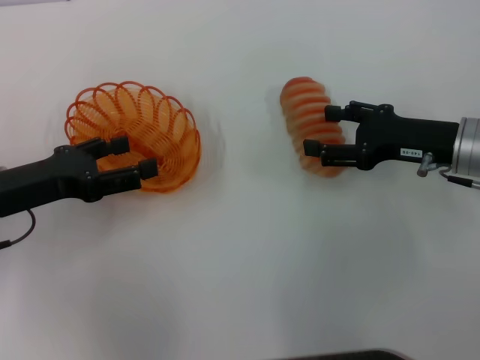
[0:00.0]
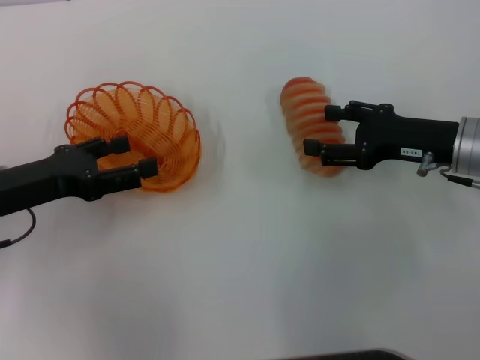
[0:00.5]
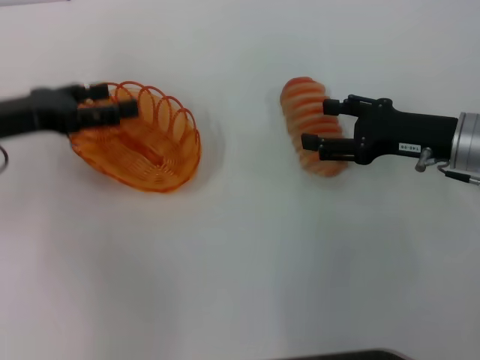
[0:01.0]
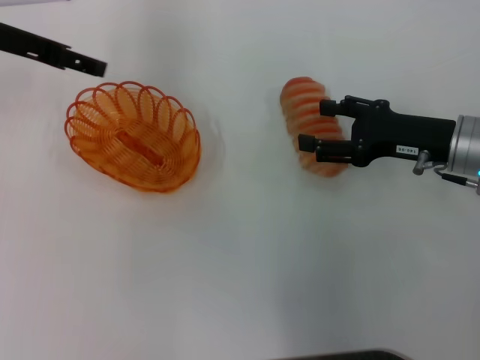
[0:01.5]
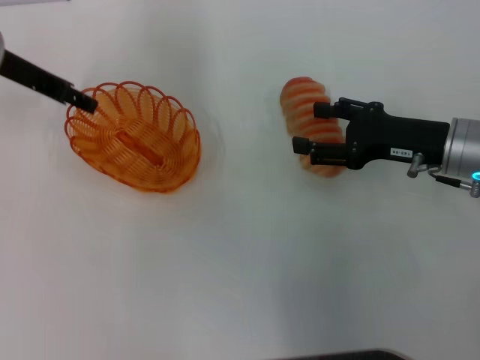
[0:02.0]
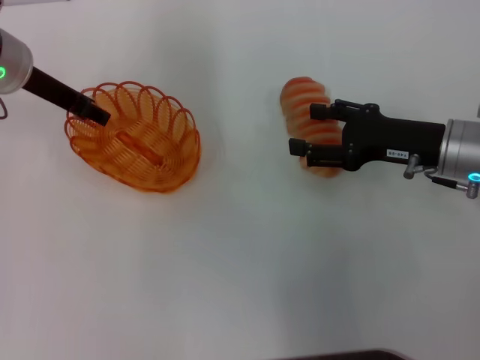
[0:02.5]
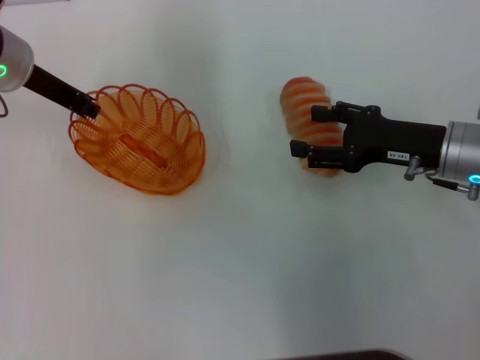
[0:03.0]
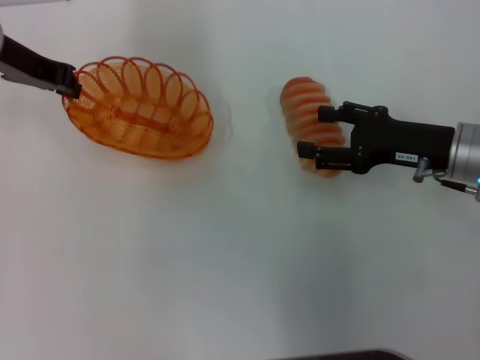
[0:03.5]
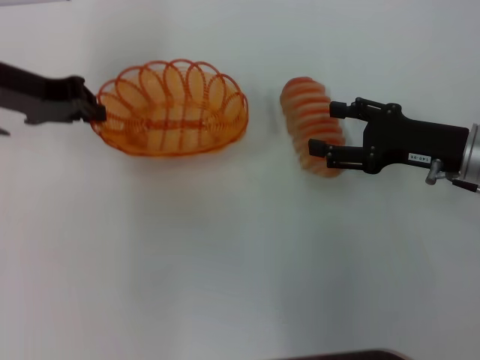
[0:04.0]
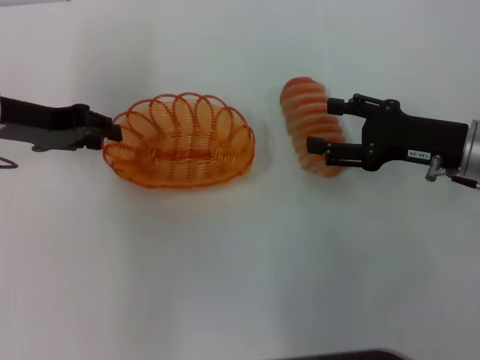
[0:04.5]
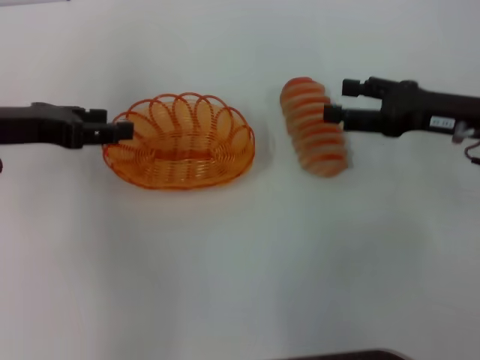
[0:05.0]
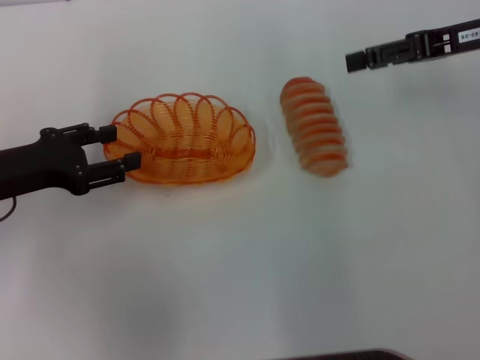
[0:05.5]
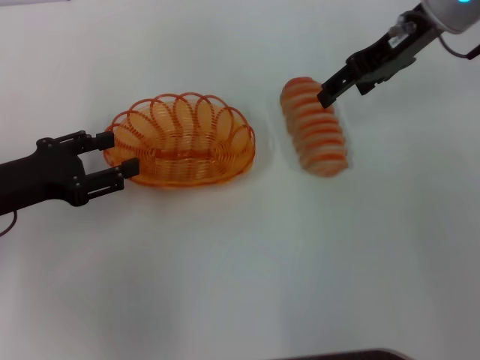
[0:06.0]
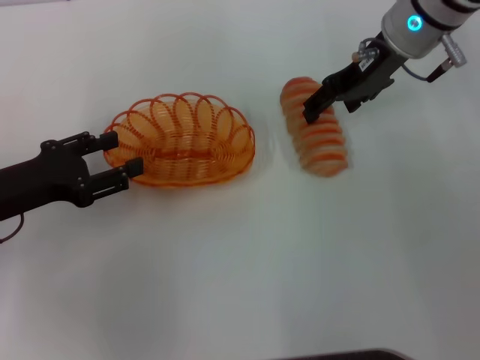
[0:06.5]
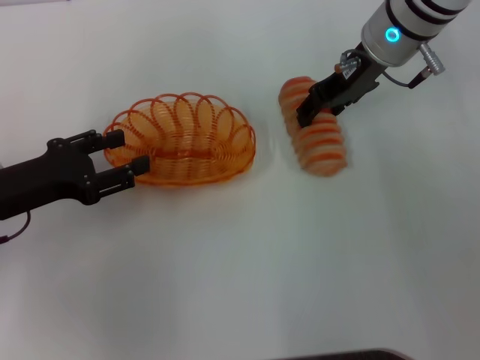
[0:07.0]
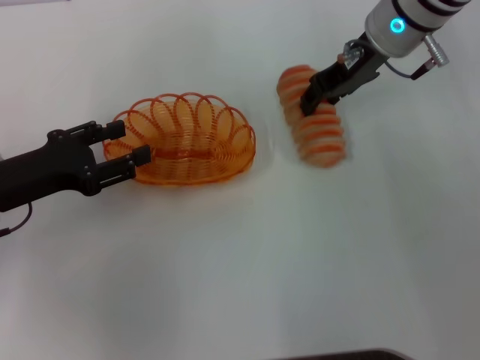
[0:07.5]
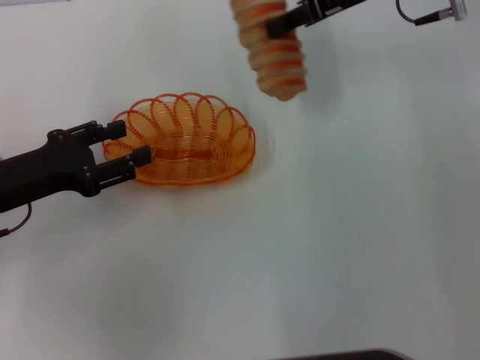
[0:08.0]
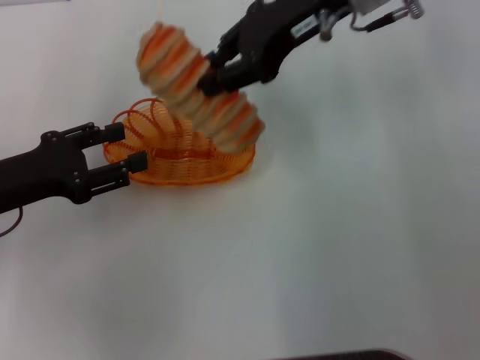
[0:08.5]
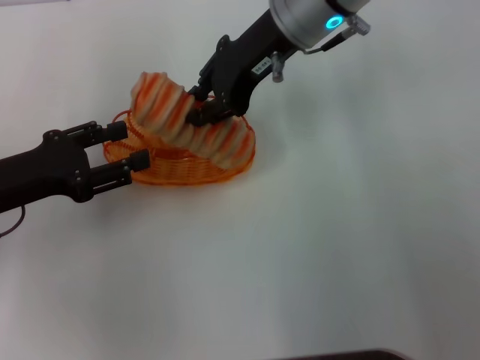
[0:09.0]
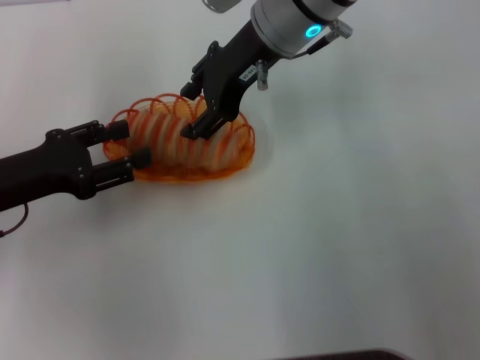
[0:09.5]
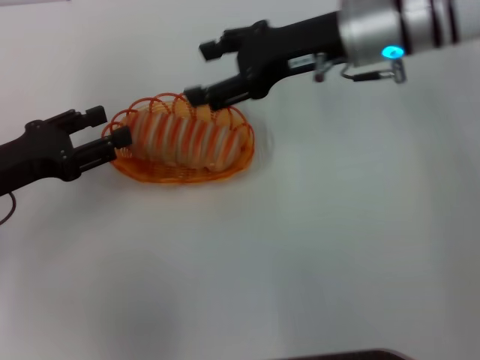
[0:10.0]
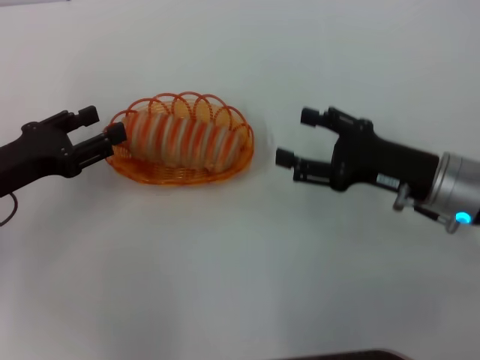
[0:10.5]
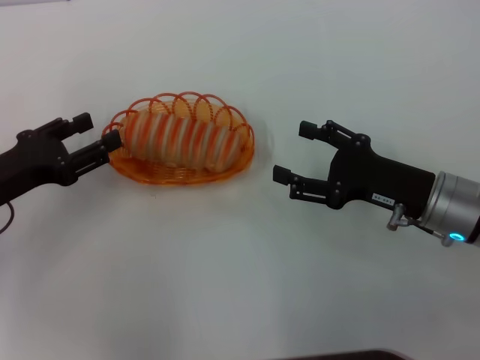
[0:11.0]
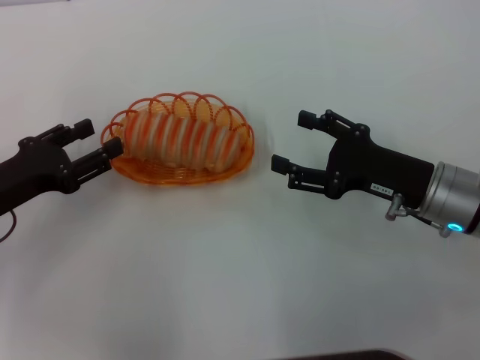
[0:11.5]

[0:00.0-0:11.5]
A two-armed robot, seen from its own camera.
Step, 0:00.0 to 0:03.0: Pick up the basket with the left gripper.
Step, 0:04.0 to 0:04.5: Place the basket in the center of view with the left gripper.
Step, 0:05.0 to 0:07.0: Pick up the long bread with the right gripper.
Step, 0:08.0 to 0:09.5: Place the long bread into the basket with the right gripper.
0:00.0 to 0:02.0: The left gripper is displaced forward and upward by about 15 cm.
0:02.0 to 0:04.0: The left gripper closes up.
0:04.0 to 0:06.0: The left gripper goes some 15 cm backward and downward, and opens. Meanwhile the right gripper shifts about 20 cm upward, forward and to the left.
0:06.0 to 0:07.5: The right gripper ends up about 5 cm from where it was, and closes its fingers.
0:07.5 to 0:09.5: The right gripper travels to the left by about 10 cm.
0:09.5 to 0:11.5: The right gripper travels to the right, backward and downward by roughly 25 cm, and opens its fingers.

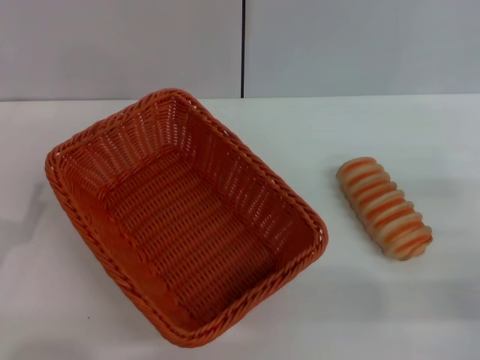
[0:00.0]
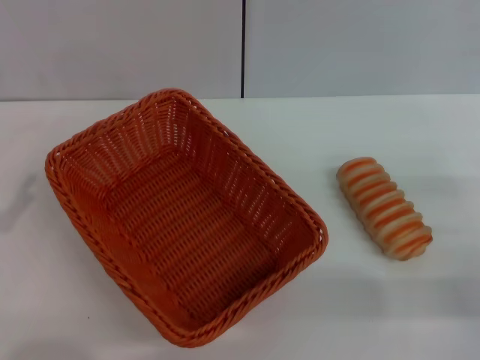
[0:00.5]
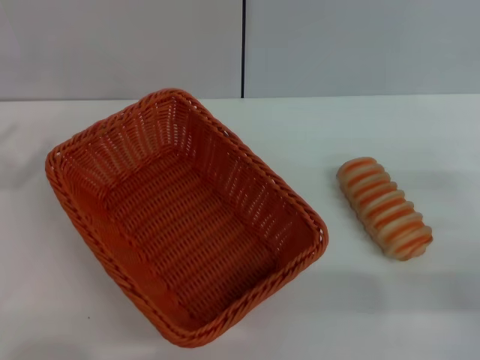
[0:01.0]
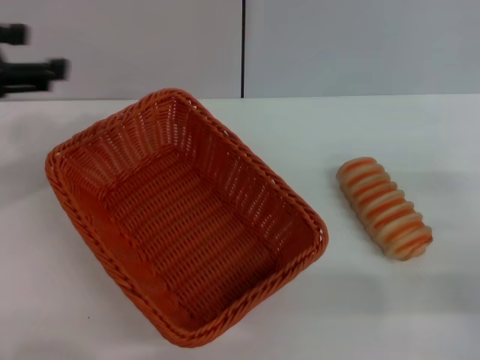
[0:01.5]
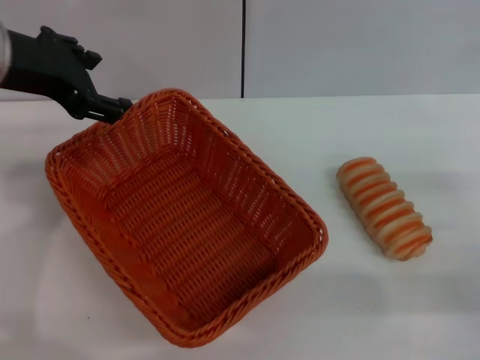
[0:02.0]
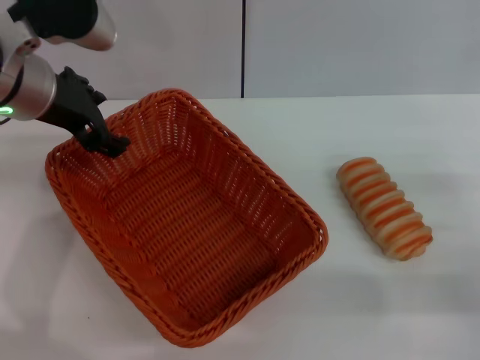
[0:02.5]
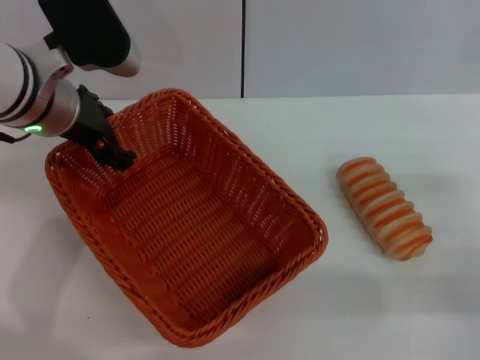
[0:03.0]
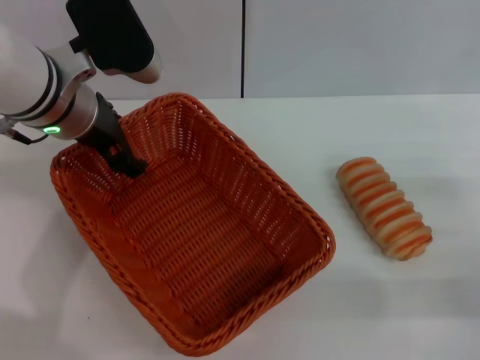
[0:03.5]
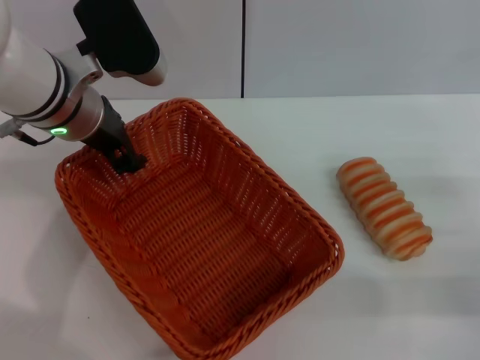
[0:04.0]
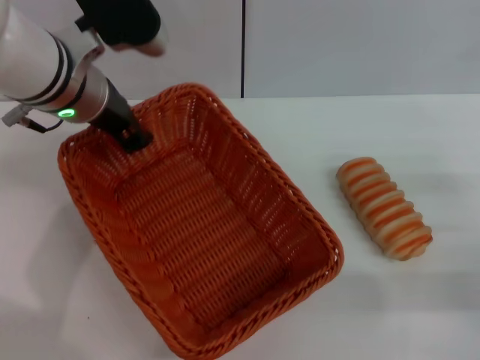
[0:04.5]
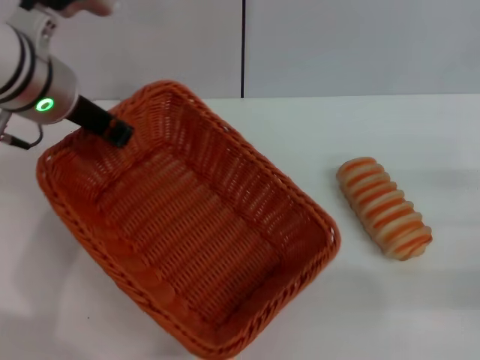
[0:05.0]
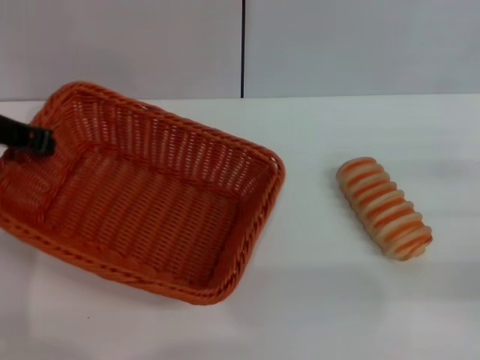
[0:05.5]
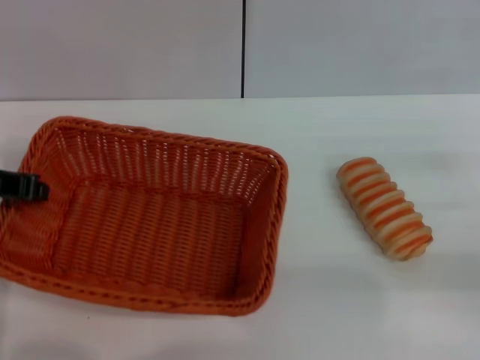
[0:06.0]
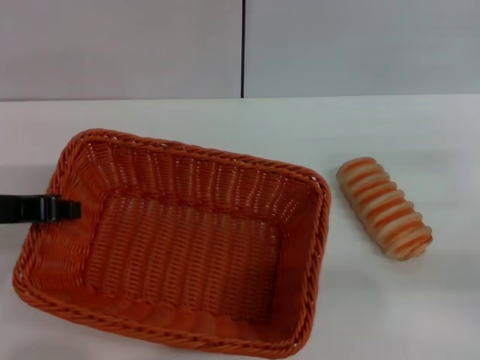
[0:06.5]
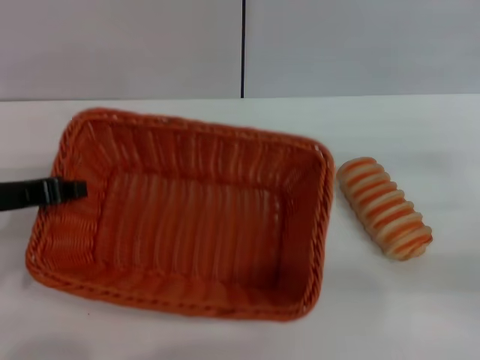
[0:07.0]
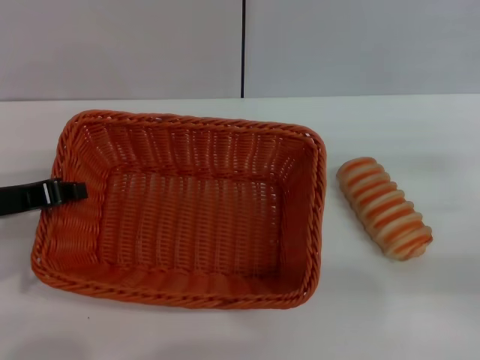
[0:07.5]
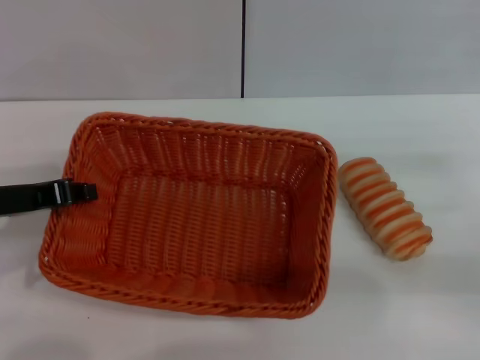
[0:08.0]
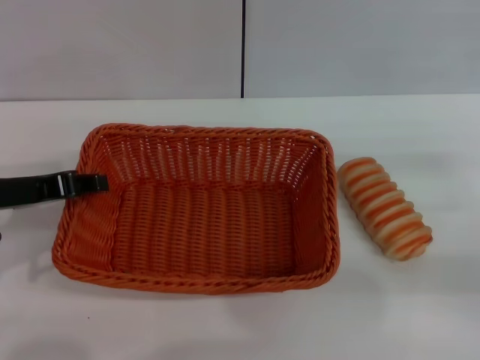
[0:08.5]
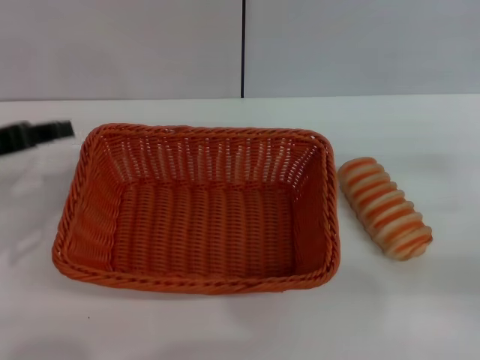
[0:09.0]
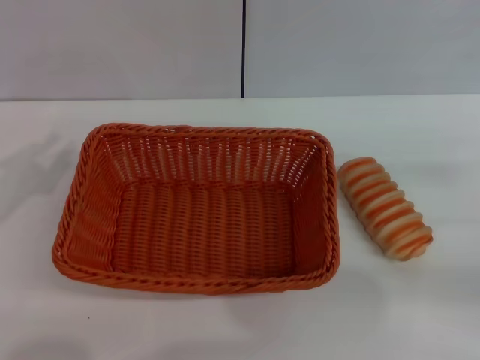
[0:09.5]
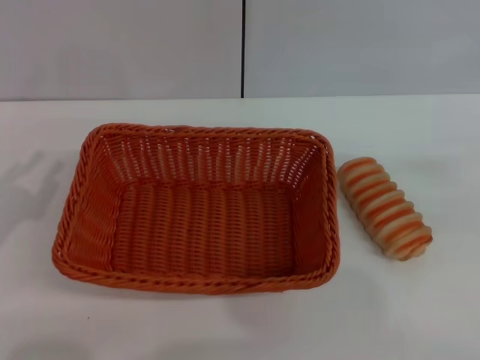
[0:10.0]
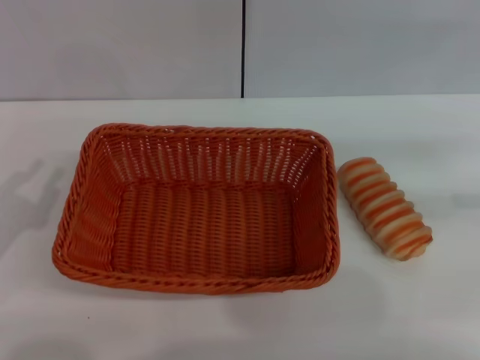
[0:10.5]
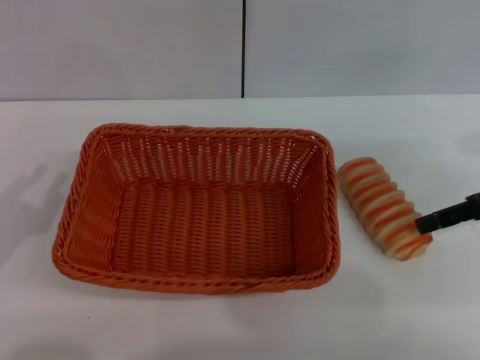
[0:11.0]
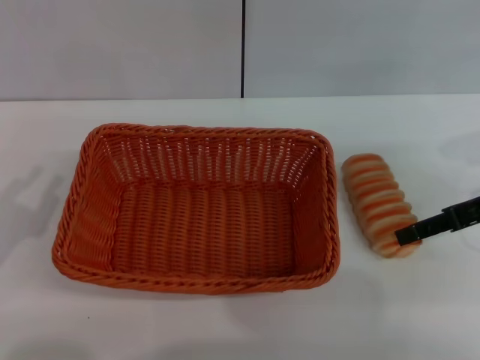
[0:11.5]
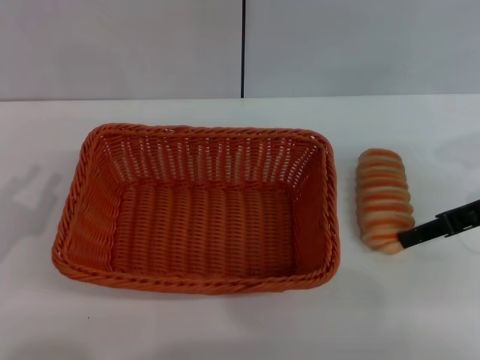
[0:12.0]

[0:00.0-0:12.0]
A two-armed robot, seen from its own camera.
Step, 0:00.0 to 0:05.0: Pick up the light basket with the left gripper.
Step, 0:05.5 to 0:08.5: Place the light basket in the center of view with the left gripper.
0:00.0 to 0:02.0: The left gripper shifts some 30 cm upward, forward and to the right.
0:02.0 to 0:04.0: The left gripper shifts some 10 cm downward.
0:04.0 to 0:06.0: The left gripper travels to the left and backward by about 15 cm, and closes its fingers.
0:06.0 to 0:08.0: The left gripper moves roughly 5 cm.
0:08.0 to 0:10.0: The right gripper goes approximately 10 cm upward and to the right; the left gripper shifts about 10 cm to the left and backward, and opens up.
0:10.0 to 0:12.0: The right gripper shifts some 15 cm to the left, forward and downward, and closes up.

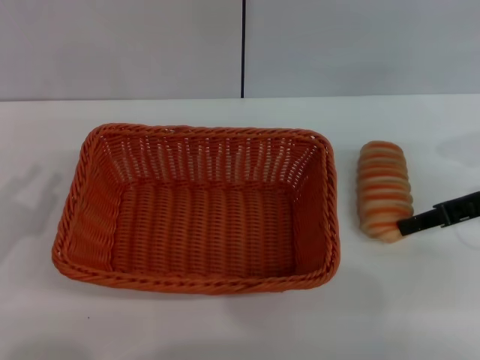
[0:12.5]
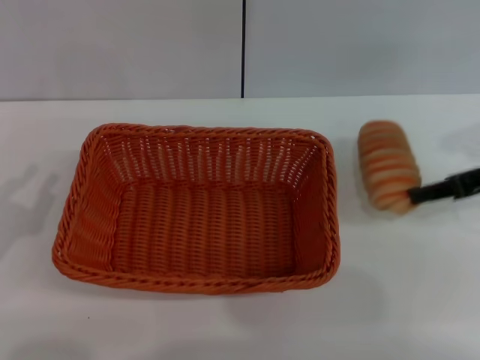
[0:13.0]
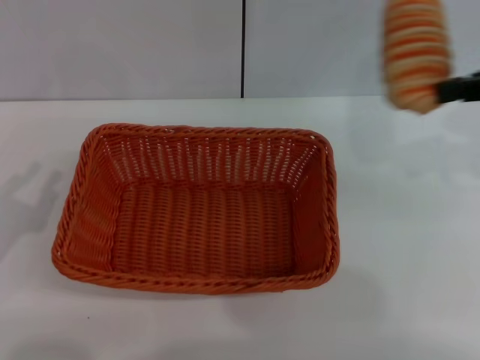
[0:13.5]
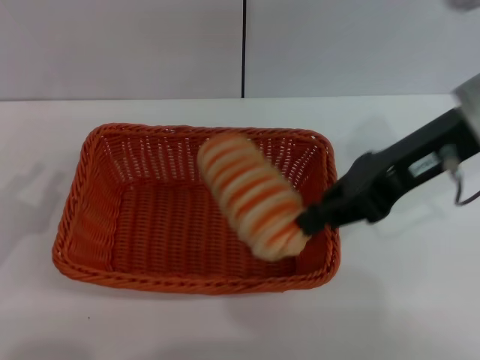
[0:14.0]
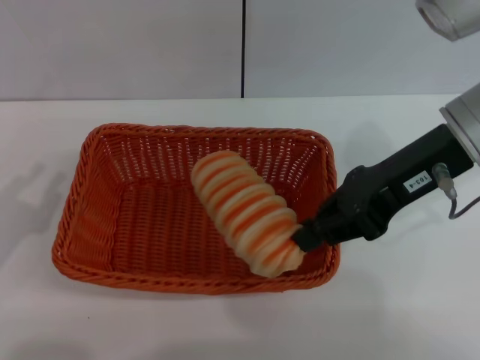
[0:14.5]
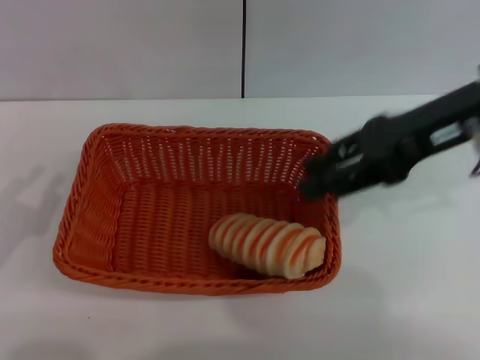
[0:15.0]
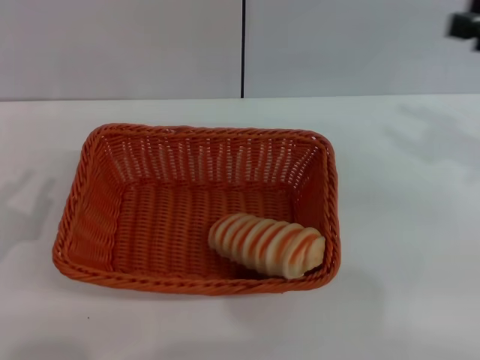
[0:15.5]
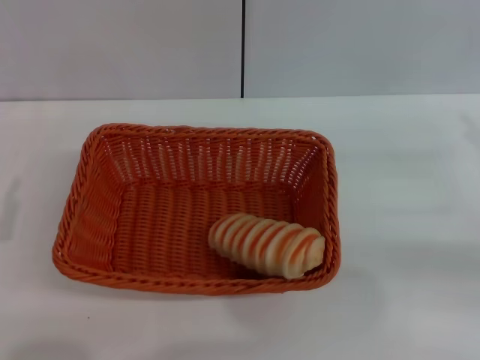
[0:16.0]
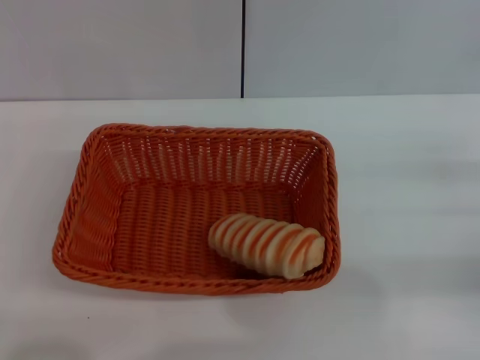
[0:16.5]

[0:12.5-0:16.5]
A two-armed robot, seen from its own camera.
Step, 0:13.5 to 0:14.5: Place the long bread into the light basket with the right gripper.
0:12.5 to 0:14.5: The right gripper is displaced to the left and upward by roughly 15 cm.
0:14.5 to 0:16.5: The left gripper shifts by about 5 cm, while the right gripper is displaced to the right, downward and backward by some 25 cm, and opens up.
